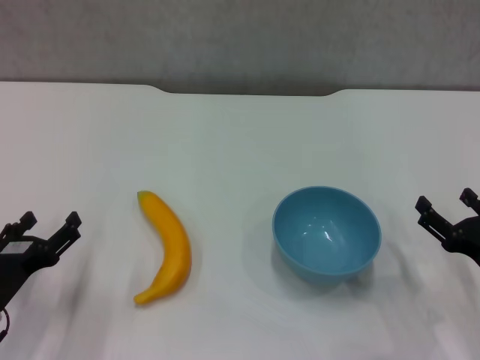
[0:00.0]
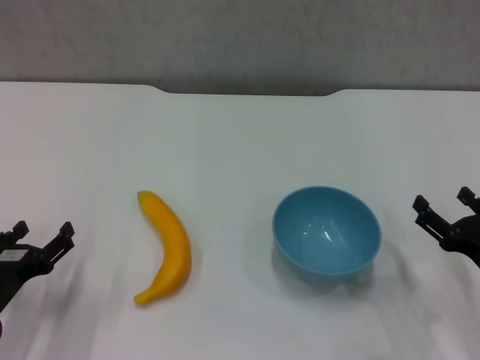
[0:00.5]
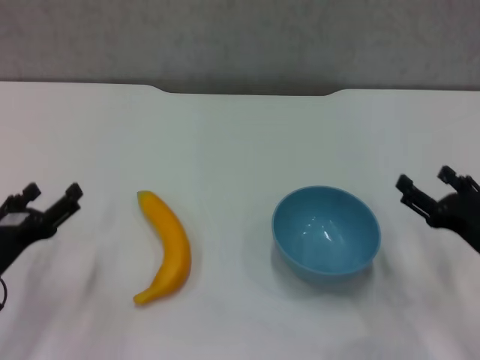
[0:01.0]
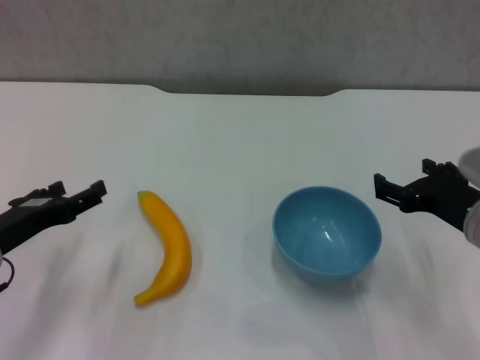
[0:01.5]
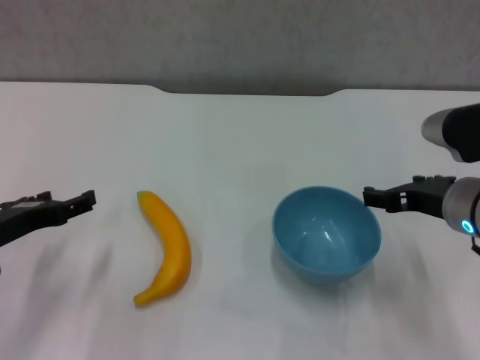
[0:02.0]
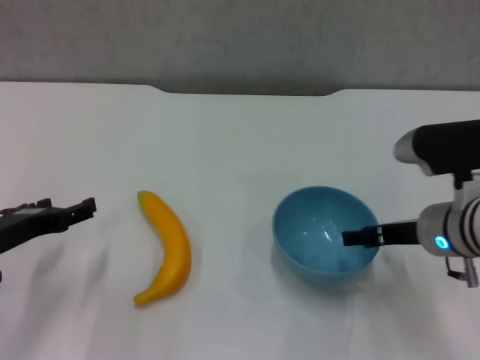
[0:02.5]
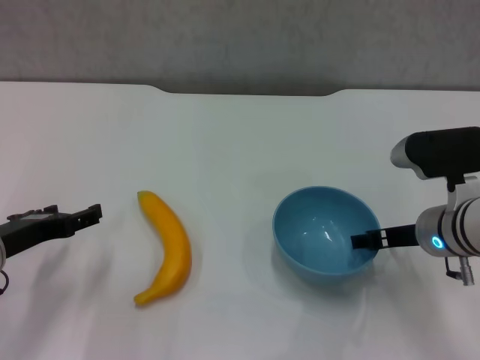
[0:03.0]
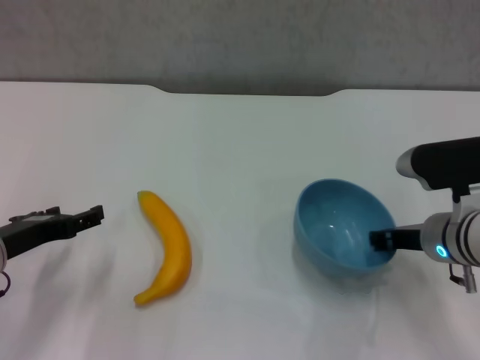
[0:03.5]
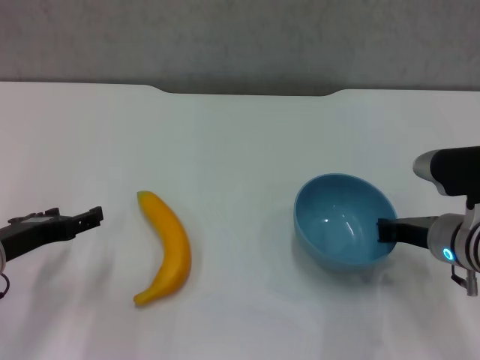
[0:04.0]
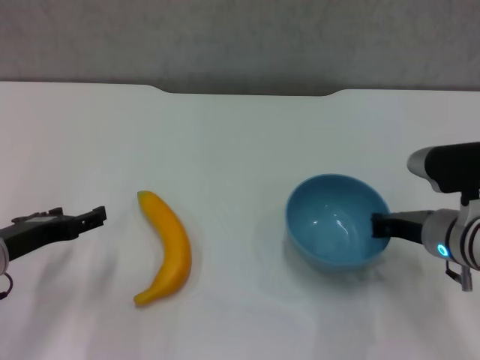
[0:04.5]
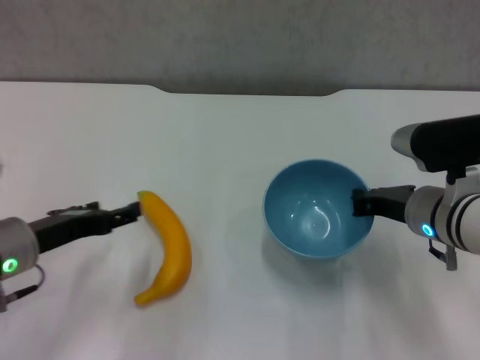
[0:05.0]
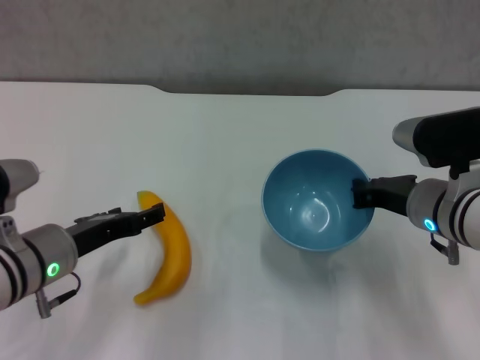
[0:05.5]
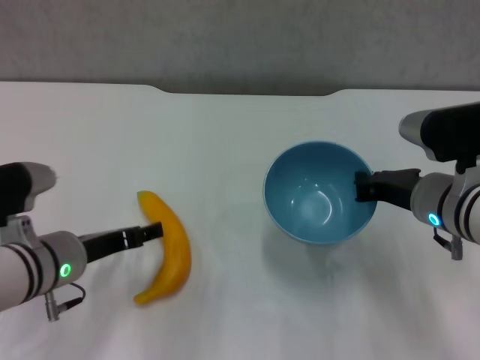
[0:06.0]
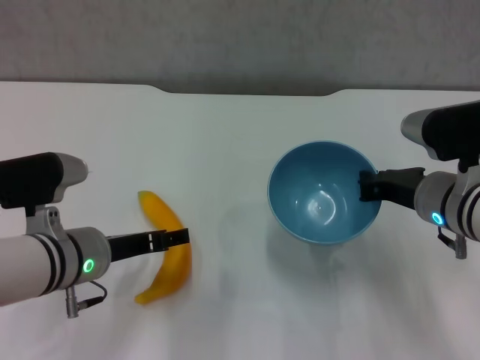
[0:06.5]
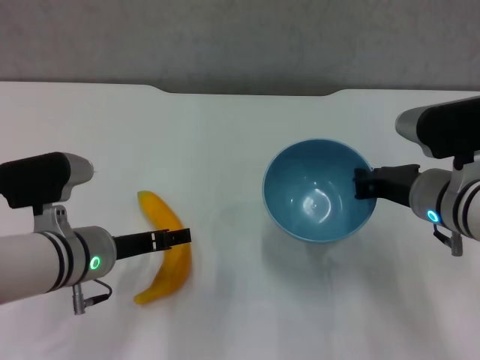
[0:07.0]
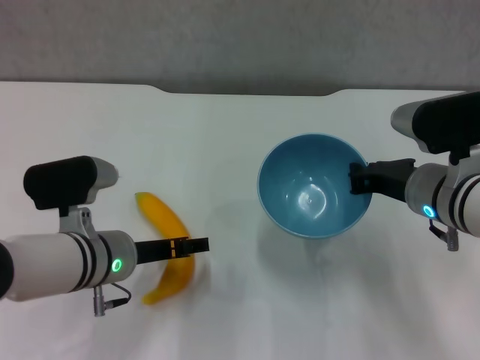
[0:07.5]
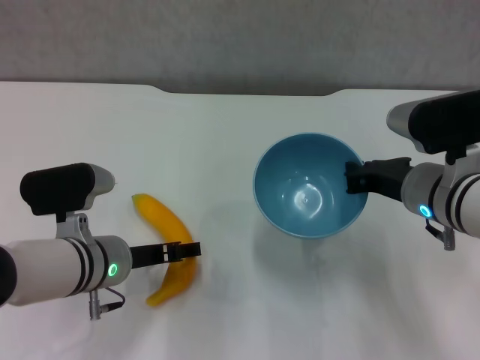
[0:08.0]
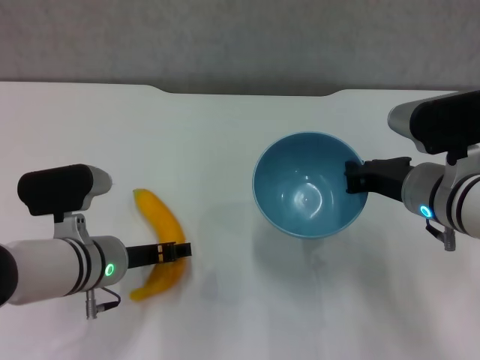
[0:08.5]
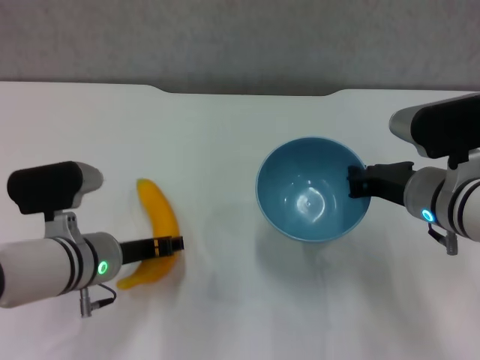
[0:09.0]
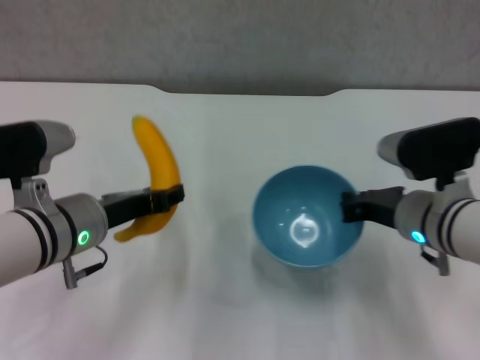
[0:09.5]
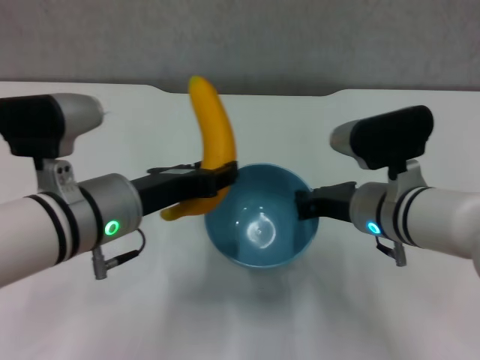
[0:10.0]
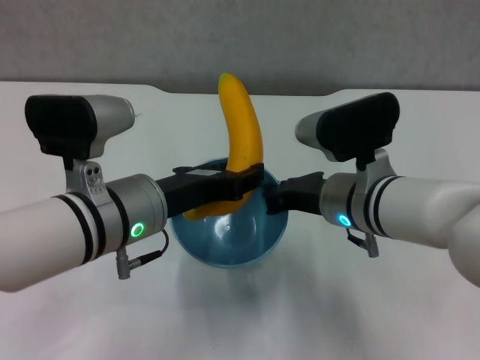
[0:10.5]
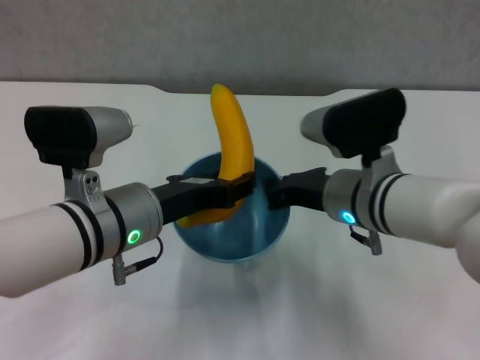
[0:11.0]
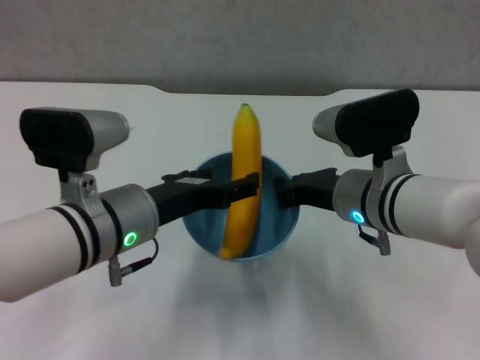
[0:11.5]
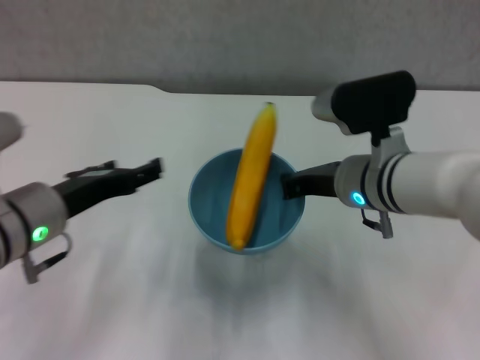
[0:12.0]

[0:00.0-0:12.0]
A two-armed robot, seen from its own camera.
Step, 0:00.0 to 0:04.0: Grasp the blue bowl with right gripper.
Step, 0:04.5 to 0:05.5: Lift the blue bowl with right gripper.
Step, 0:06.0 to 0:08.5: Grasp the banana with left gripper.
Step, 0:09.0 to 0:11.5: Place the banana in the blue bowl with left gripper.
0:00.0 to 0:02.0: The right gripper shifts about 15 cm upward, to the left and forward; the left gripper shifts roughly 10 cm upward and forward.
0:02.0 to 0:04.0: The right gripper travels downward by about 5 cm, and closes its fingers.
0:04.0 to 0:06.0: The right gripper ends up approximately 5 cm from where it was, while the left gripper moves to the right, roughly 10 cm.
0:06.0 to 0:08.0: The grippers make only small movements.
0:08.0 to 0:10.0: The right gripper changes place by about 5 cm, while the left gripper shifts some 10 cm upward, and closes its fingers.
0:10.0 to 0:12.0: The left gripper travels to the left by some 5 cm, and opens up.

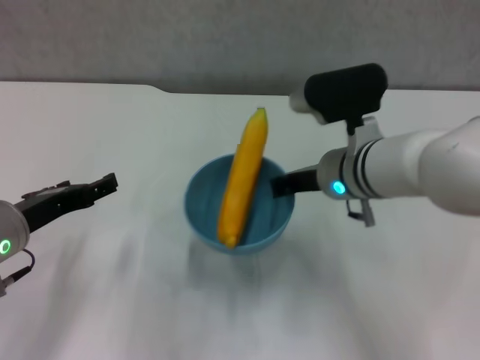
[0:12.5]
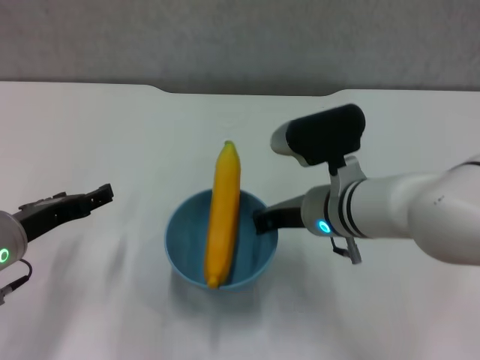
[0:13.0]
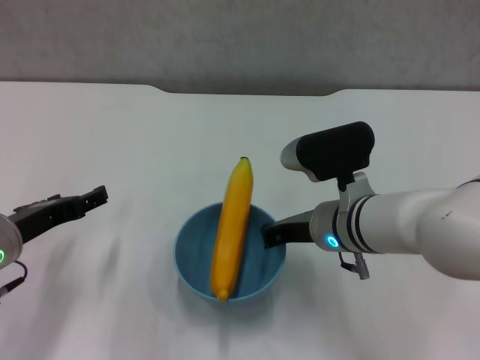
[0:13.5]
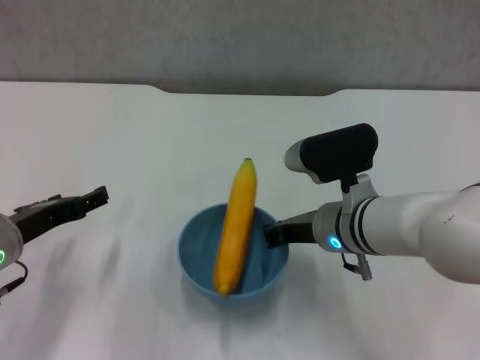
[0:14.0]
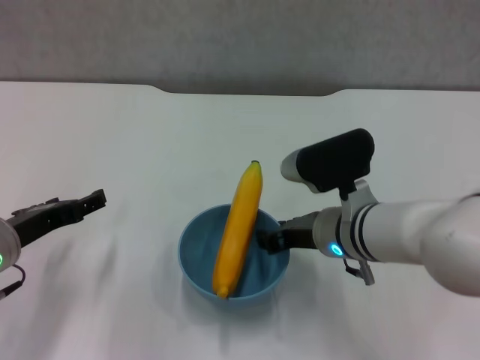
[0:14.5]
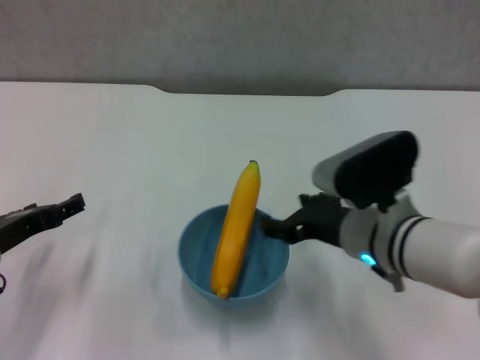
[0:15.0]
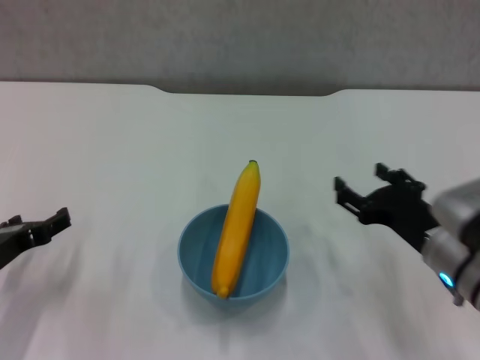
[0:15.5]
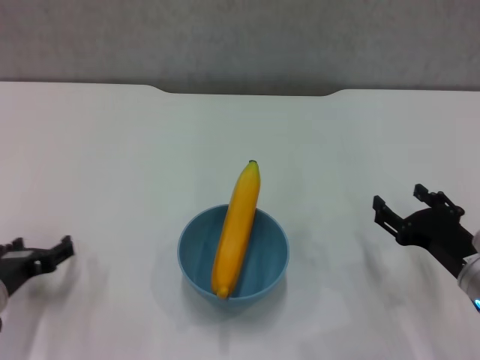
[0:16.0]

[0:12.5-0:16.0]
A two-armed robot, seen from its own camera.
Step, 0:12.5 to 0:14.5: Place the bowl on the table with right gripper.
0:12.5 to 0:14.5: The right gripper ends up approximately 5 cm from where it was.
0:14.5 to 0:16.0: The left gripper is displaced downward by about 5 cm. The right gripper travels to the right and backward by roughly 15 cm, and opens.
